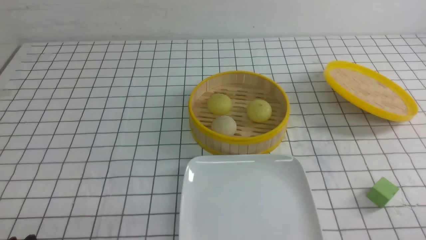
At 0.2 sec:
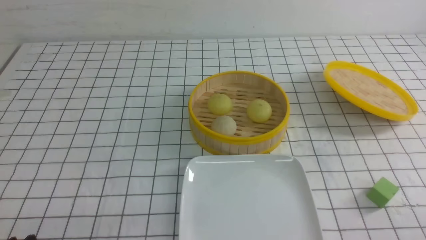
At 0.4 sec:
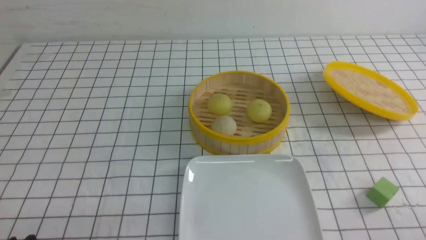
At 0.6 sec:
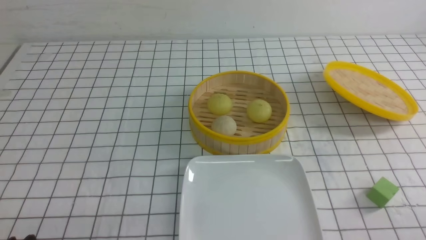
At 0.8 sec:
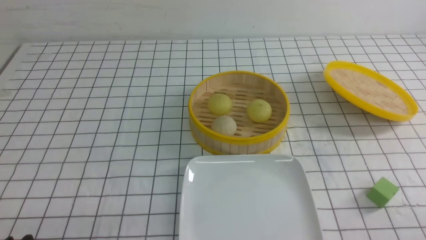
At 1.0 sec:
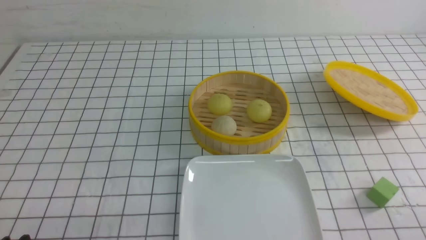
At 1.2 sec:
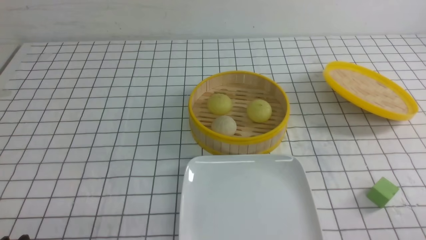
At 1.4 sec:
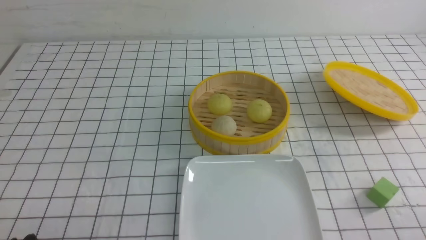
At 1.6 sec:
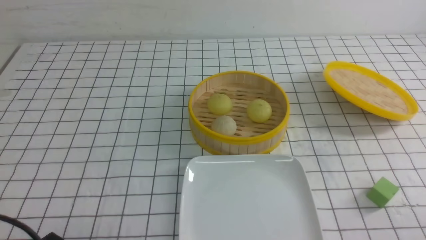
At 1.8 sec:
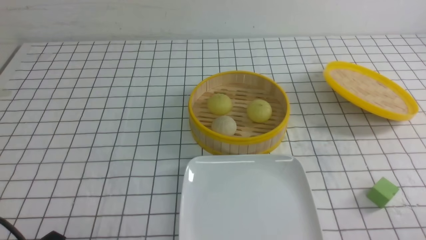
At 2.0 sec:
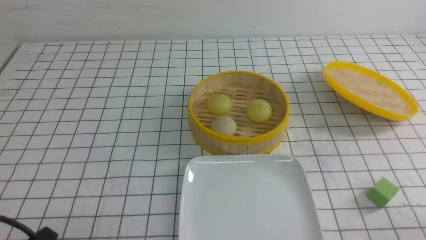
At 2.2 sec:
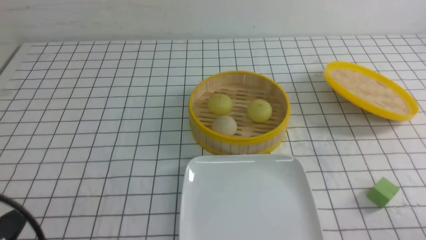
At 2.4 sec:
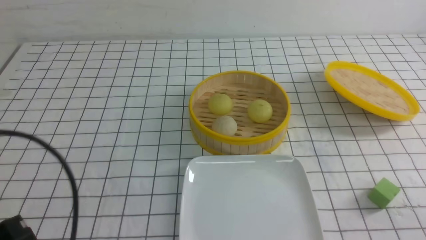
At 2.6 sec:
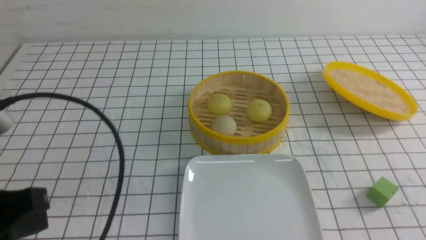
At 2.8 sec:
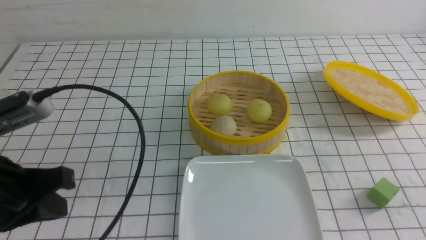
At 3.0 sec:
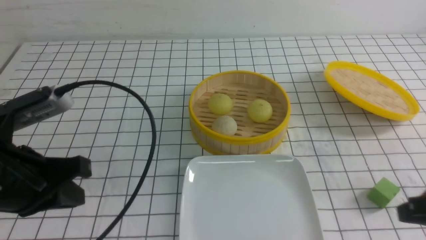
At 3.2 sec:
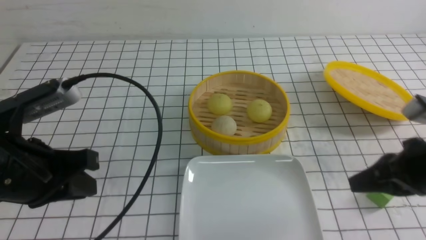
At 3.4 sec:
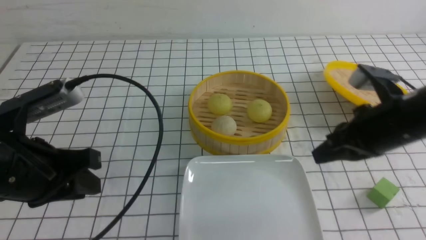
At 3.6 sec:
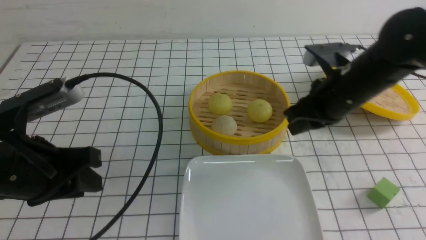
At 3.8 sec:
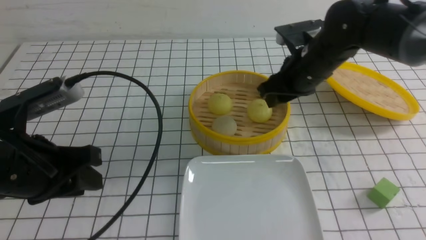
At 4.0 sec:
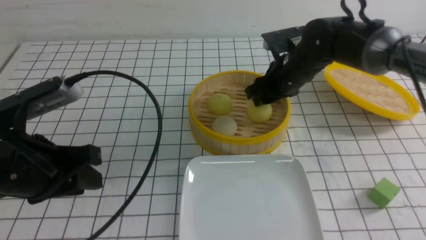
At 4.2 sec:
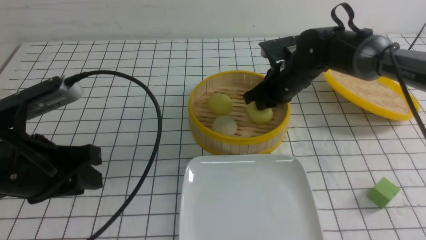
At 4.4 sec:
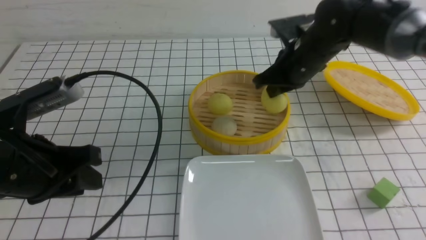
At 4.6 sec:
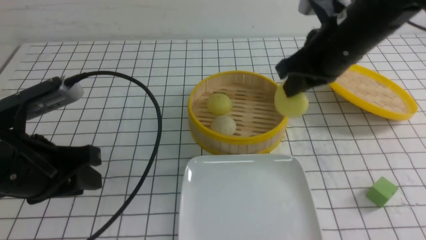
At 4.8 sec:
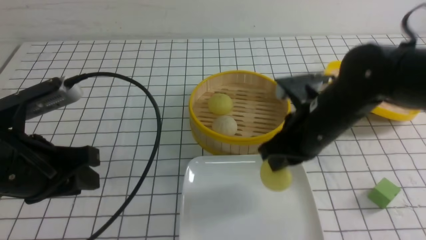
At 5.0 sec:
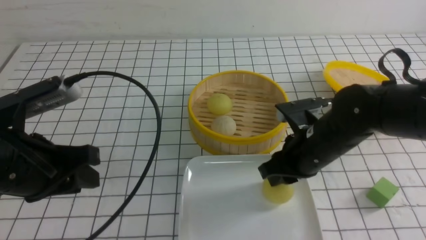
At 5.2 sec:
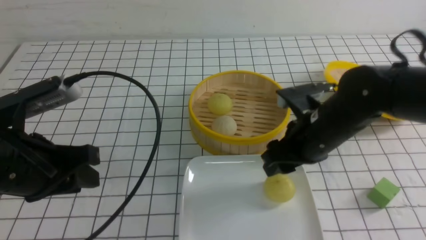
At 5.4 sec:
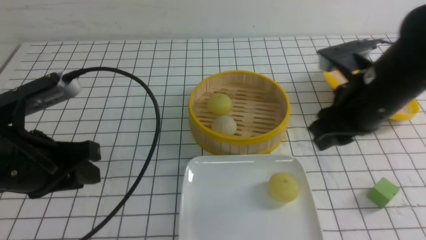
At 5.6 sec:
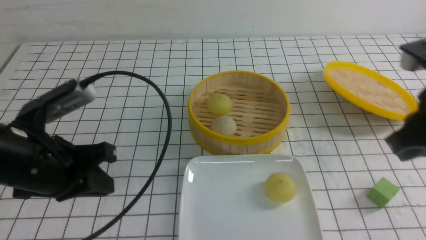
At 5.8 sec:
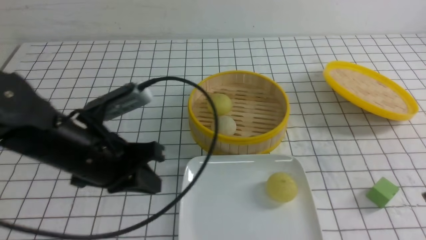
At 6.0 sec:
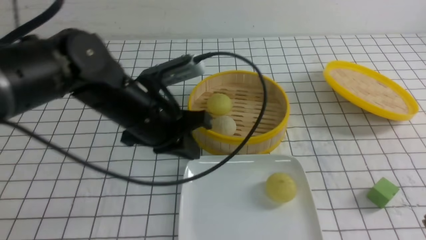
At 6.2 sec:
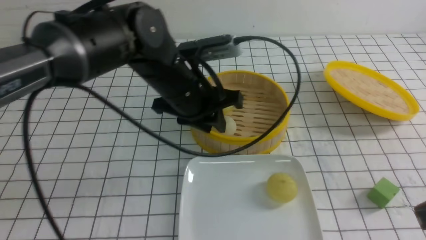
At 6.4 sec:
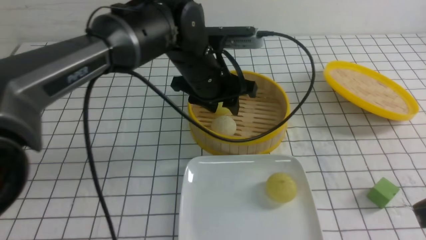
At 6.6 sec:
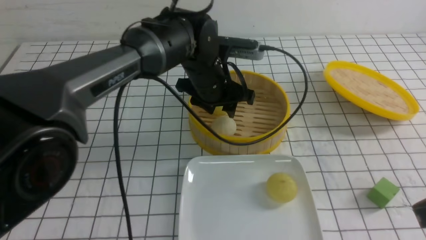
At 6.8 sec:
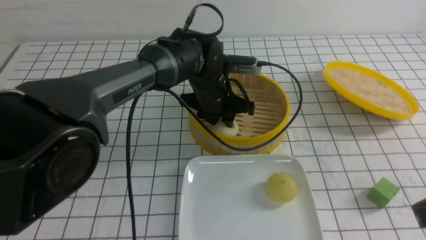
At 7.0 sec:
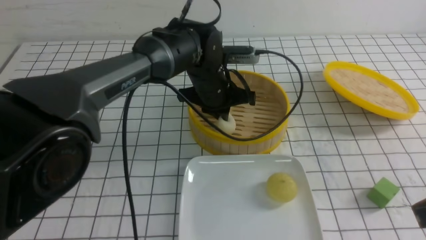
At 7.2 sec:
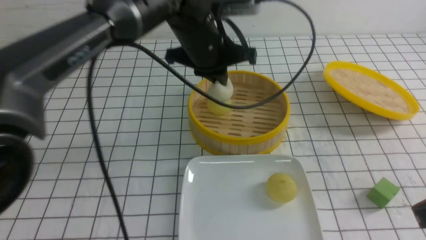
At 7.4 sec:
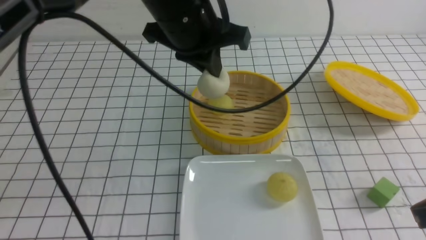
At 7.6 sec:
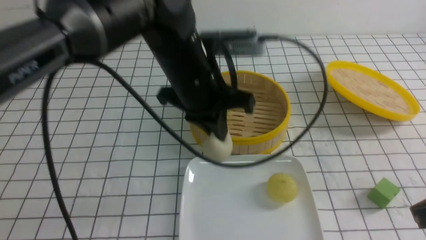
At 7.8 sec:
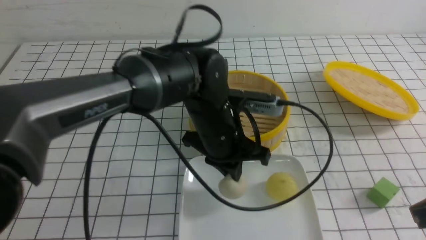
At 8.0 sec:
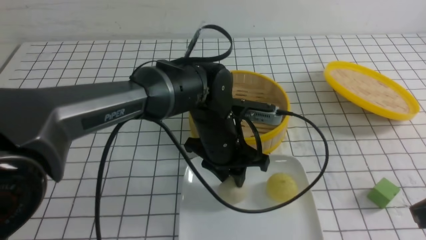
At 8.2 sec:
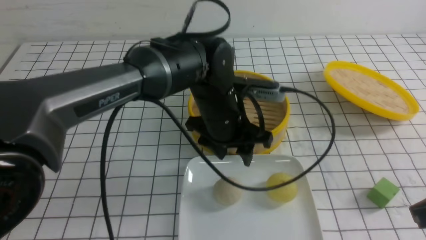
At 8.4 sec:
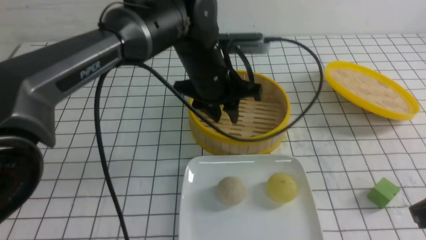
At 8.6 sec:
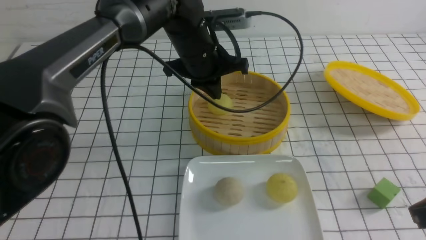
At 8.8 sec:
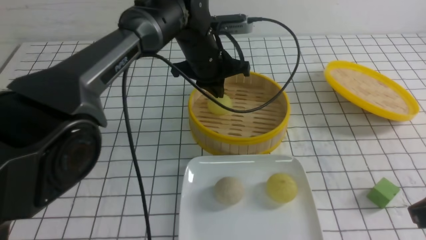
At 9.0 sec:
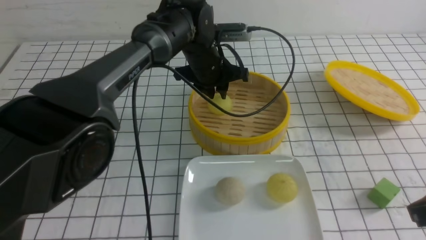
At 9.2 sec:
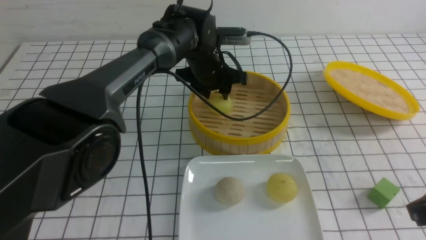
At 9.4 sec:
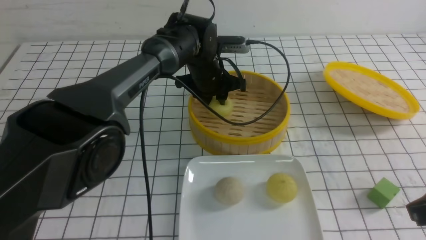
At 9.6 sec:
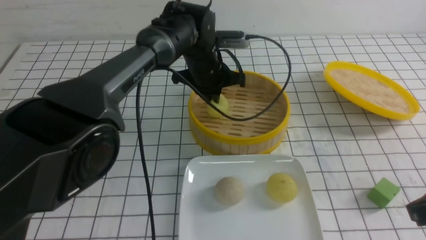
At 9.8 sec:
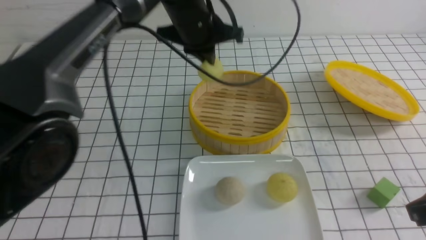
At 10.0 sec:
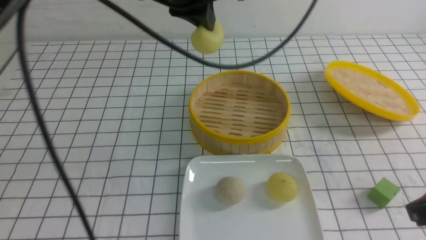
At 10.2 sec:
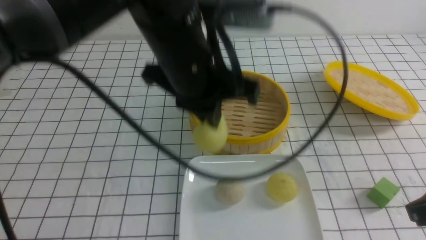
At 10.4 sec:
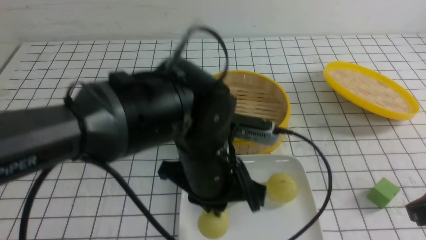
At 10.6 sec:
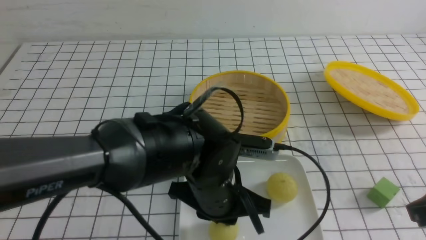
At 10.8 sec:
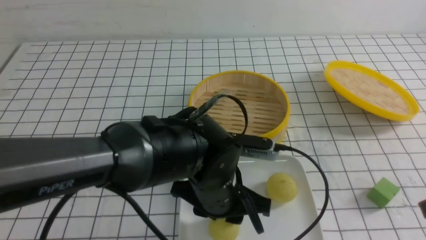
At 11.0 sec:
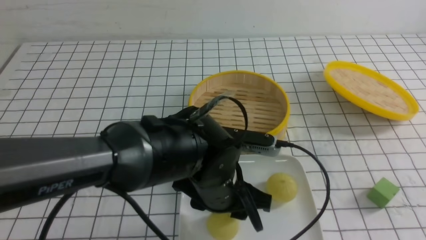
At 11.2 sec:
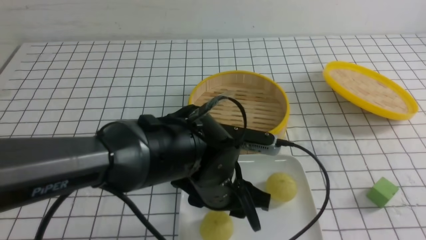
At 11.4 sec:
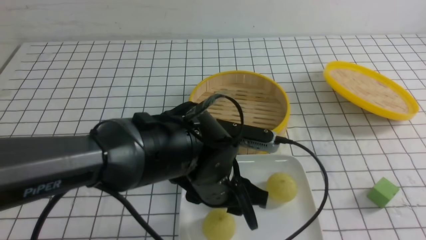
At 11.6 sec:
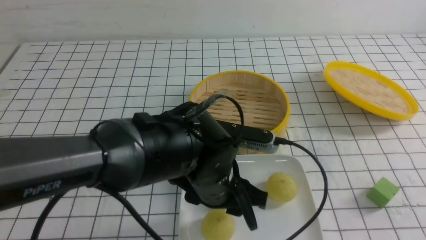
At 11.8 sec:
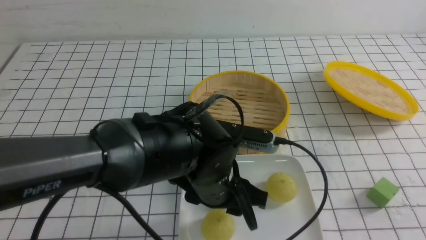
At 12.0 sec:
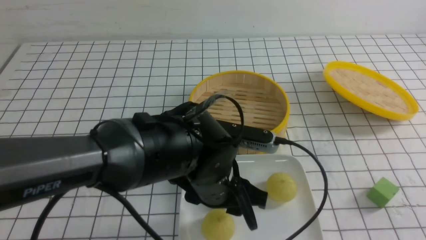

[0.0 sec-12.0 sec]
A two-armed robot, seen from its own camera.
Step, 0.0 sec to 4.2 sec: use the right arm to grab the steamed stuffed bun that is closest to it.
Step, 4.4 sec to 5.2 sec: use the right arm to put the steamed stuffed bun into the plate.
Step, 5.4 sec to 7.0 sec: use the left arm to grab the steamed stuffed bun that is closest to it.
Step, 7.2 sec to 8.2 sec: use the left arm to put the steamed stuffed bun into the plate.
Step, 8.4 sec to 9.6 sec: use the left arm to grab the steamed stuffed bun that is closest to it.
Step, 9.8 sec to 11.2 sec: use the left arm to put the steamed stuffed bun into the plate.
1.6 sec to 3.0 sec: The right gripper moves forward and upward, roughly 15 cm, and closes. The left gripper heads upward and forward, covering about 15 cm, and closes up.
3.0 sec to 4.4 sec: The left gripper opens up. Meanwhile the right gripper heads forward and to the left, covering about 25 cm, and opens, then closes once more.
4.4 sec to 6.0 sec: The left gripper moves to the right and forward, approximately 15 cm, and closes its fingers; the right gripper moves backward and to the right, approximately 30 cm, and opens, then closes once more.
6.0 sec to 7.6 sec: The left gripper swings up and down, roughly 10 cm each way, with 2 reversals, and opens and closes again.
7.6 sec to 9.0 sec: The left gripper travels forward and downward by roughly 15 cm, and opens its fingers.
9.0 sec to 10.4 sec: The left gripper is displaced backward by roughly 20 cm, and closes up.
10.4 sec to 12.0 sec: The left gripper opens. The right gripper moves backward, roughly 10 cm, and closes its fingers.

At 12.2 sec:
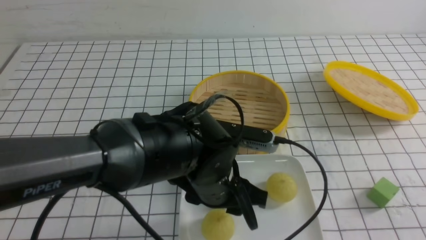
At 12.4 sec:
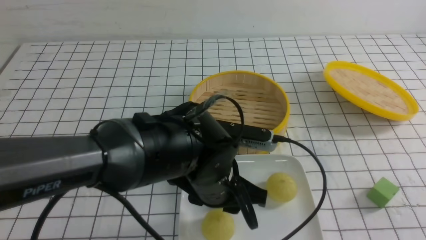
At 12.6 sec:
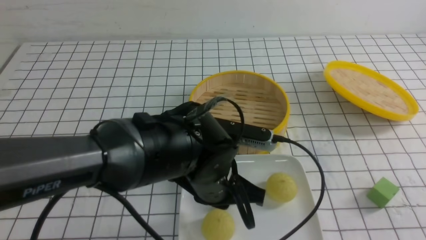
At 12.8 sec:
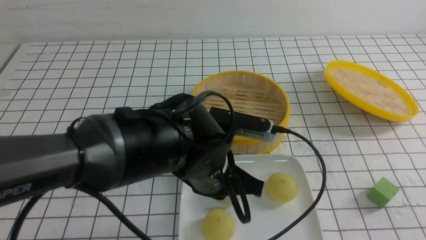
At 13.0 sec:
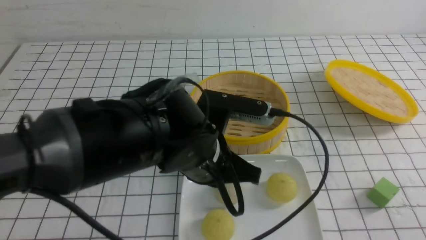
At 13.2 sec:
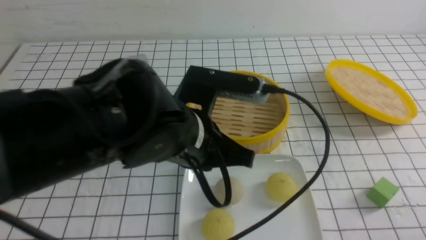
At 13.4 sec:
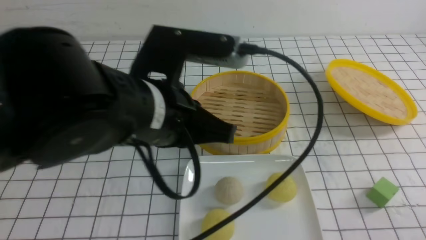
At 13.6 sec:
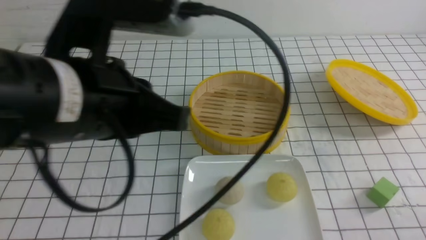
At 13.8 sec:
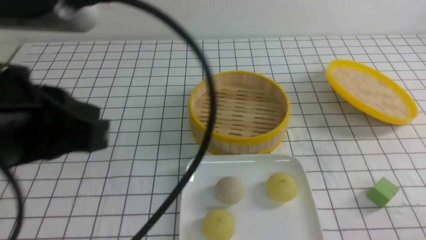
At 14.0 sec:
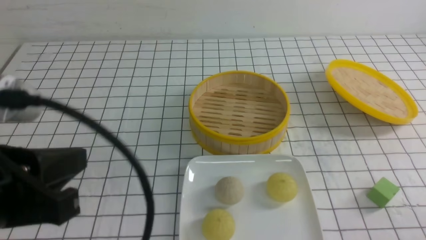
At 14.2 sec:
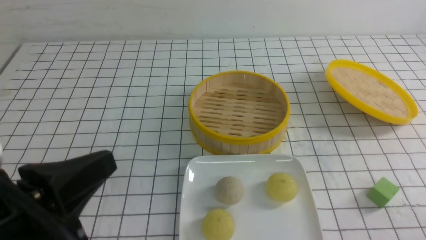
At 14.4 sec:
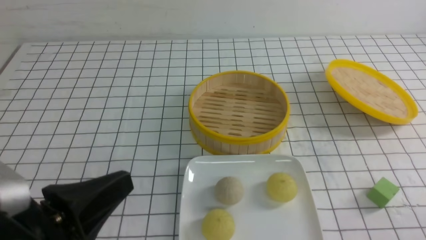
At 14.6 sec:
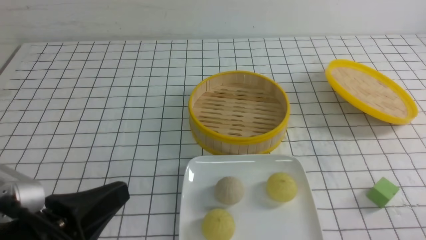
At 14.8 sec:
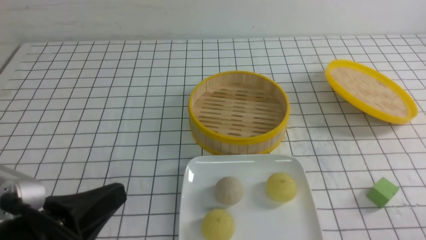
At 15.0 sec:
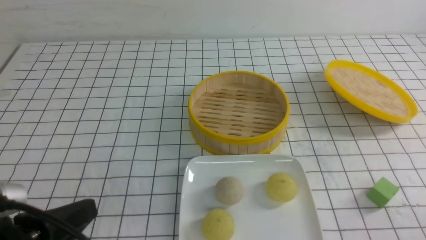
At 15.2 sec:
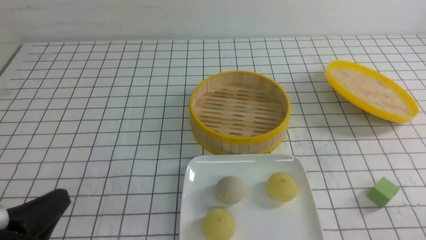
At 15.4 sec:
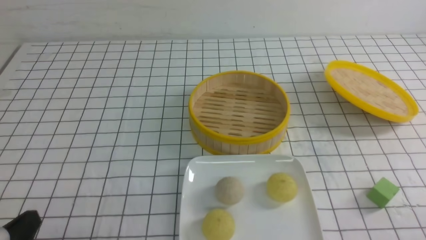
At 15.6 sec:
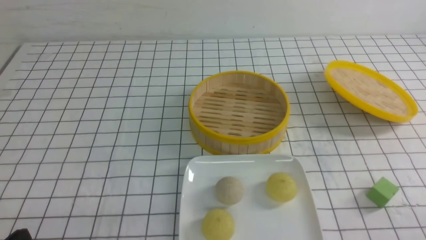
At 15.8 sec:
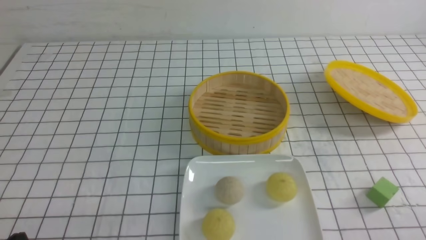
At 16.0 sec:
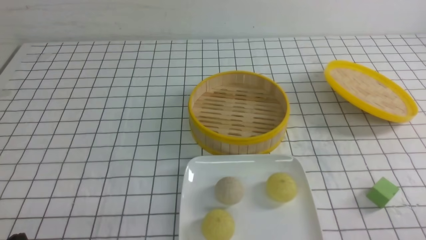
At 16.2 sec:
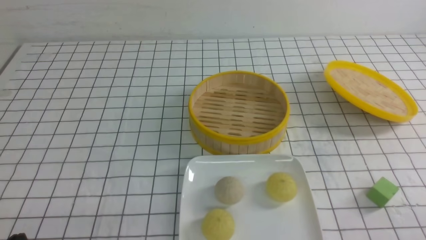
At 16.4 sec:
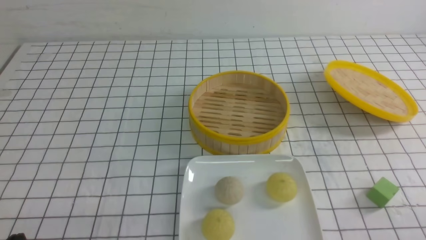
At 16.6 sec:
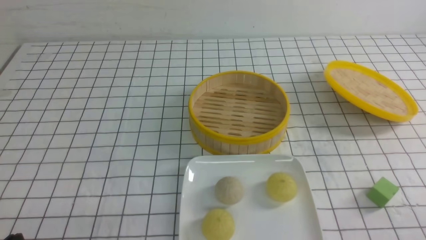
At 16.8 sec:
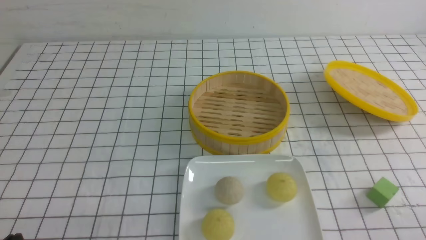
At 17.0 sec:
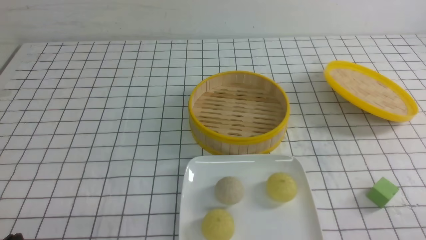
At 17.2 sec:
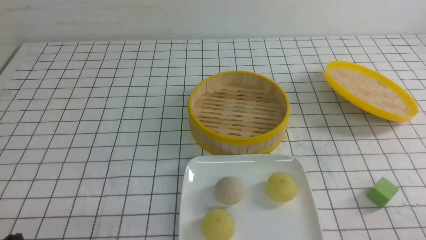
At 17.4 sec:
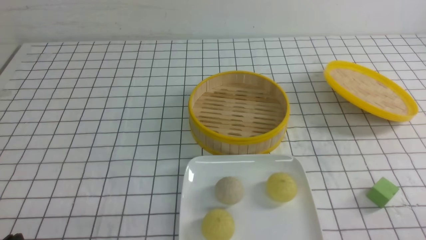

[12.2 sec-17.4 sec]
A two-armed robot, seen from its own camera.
12.2 sec to 14.0 sec: The left gripper heads to the left, upward and backward, covering approximately 25 cm, and closes its fingers. Meanwhile the right gripper goes roughly 10 cm downward.
14.0 sec to 15.6 sec: The left gripper shifts about 20 cm downward and to the left.
